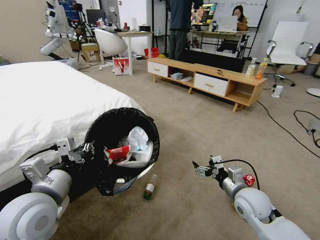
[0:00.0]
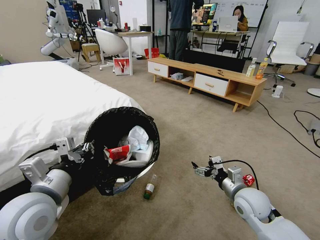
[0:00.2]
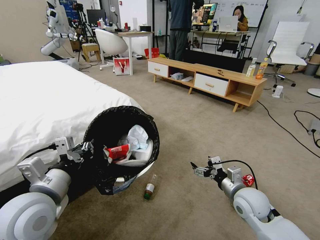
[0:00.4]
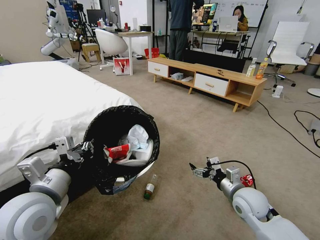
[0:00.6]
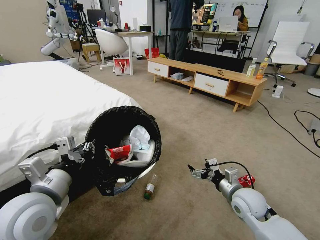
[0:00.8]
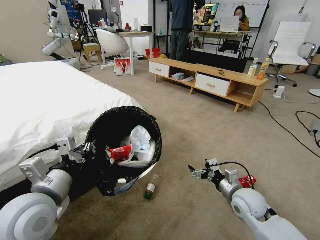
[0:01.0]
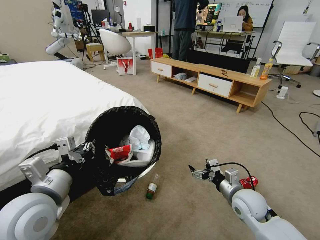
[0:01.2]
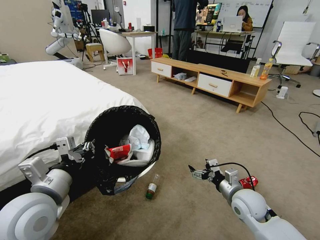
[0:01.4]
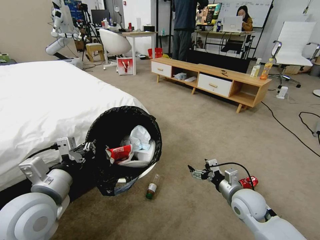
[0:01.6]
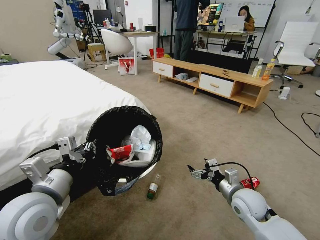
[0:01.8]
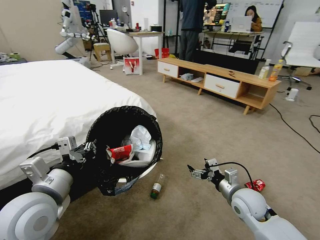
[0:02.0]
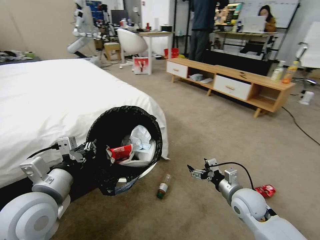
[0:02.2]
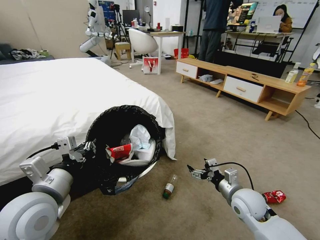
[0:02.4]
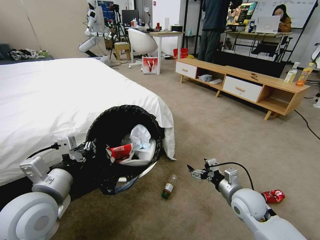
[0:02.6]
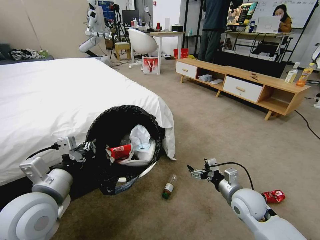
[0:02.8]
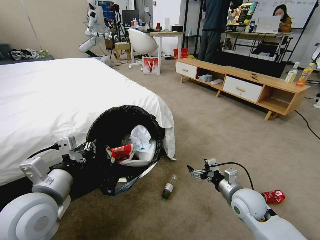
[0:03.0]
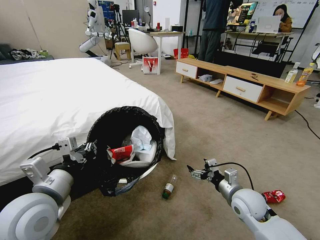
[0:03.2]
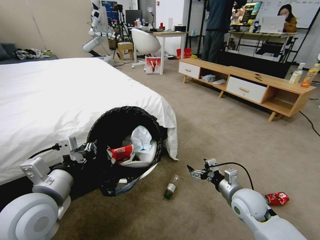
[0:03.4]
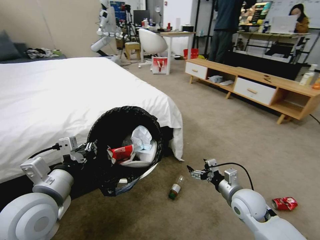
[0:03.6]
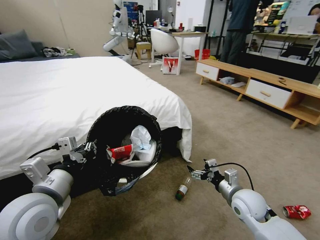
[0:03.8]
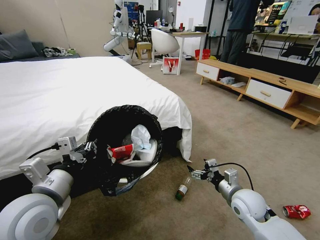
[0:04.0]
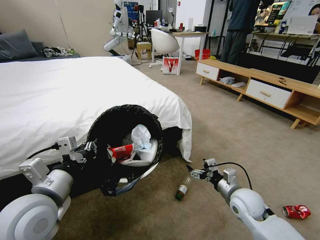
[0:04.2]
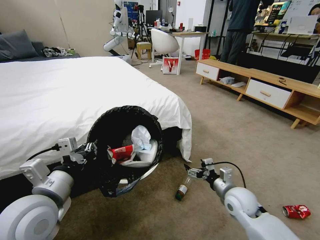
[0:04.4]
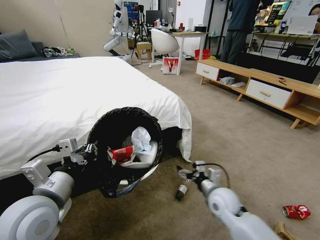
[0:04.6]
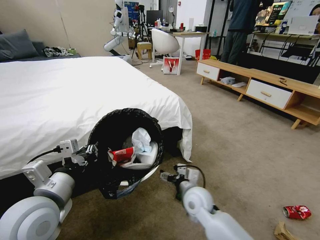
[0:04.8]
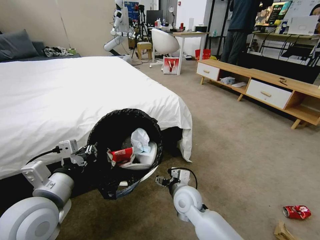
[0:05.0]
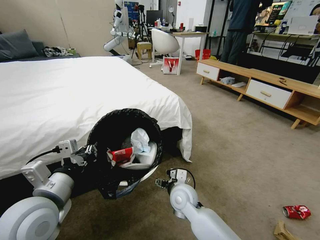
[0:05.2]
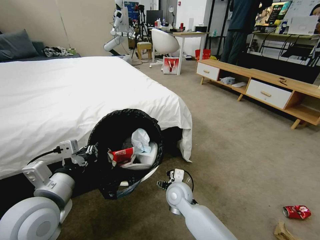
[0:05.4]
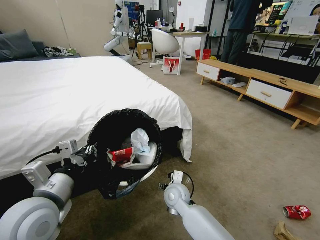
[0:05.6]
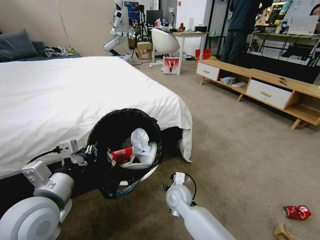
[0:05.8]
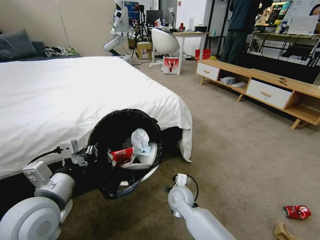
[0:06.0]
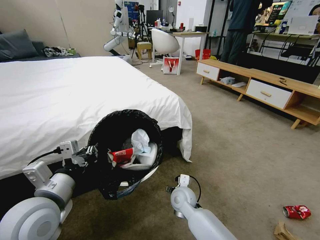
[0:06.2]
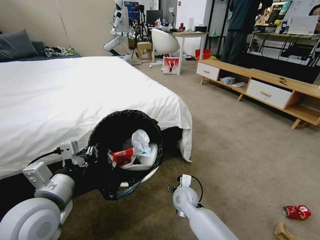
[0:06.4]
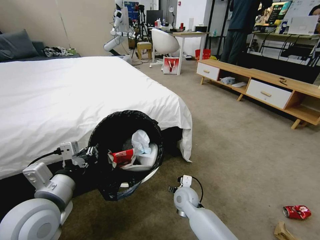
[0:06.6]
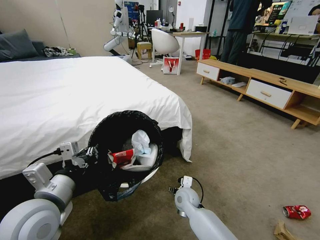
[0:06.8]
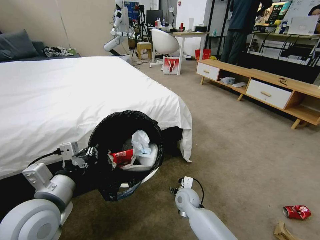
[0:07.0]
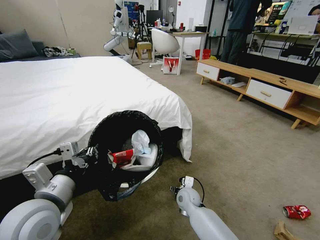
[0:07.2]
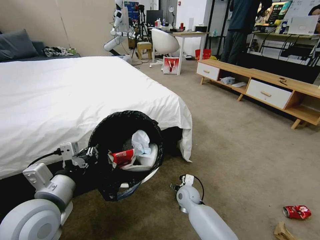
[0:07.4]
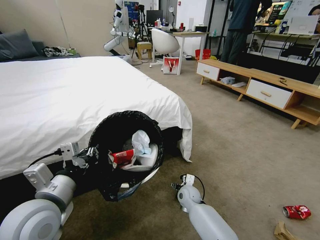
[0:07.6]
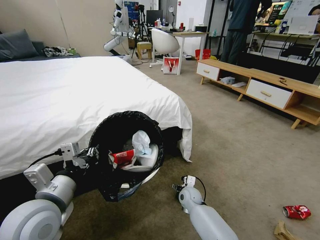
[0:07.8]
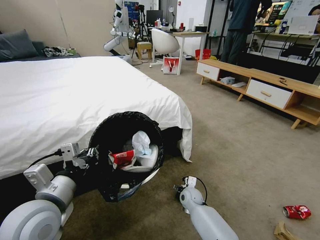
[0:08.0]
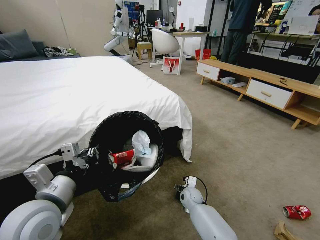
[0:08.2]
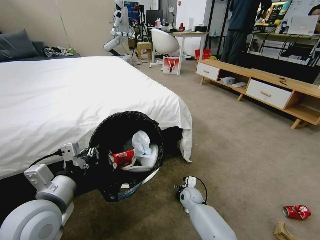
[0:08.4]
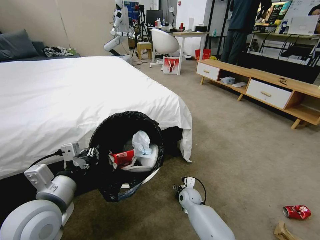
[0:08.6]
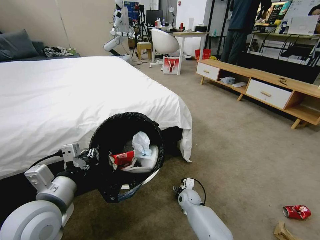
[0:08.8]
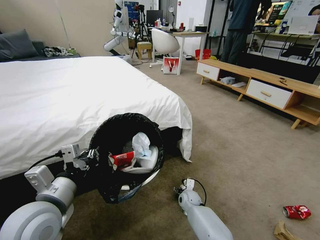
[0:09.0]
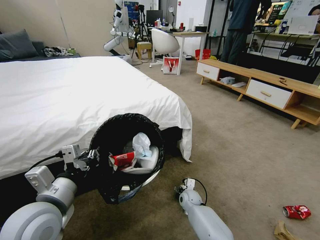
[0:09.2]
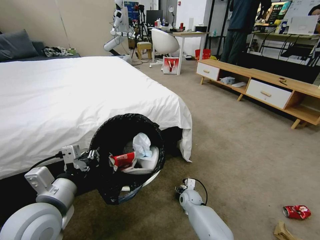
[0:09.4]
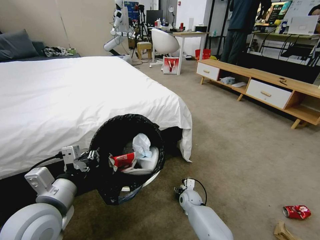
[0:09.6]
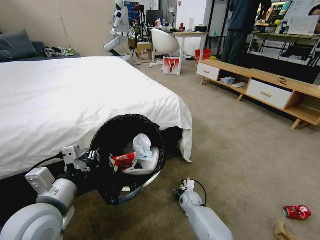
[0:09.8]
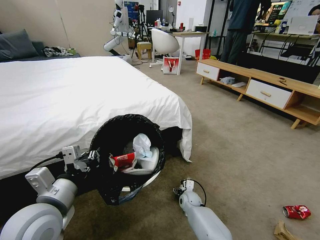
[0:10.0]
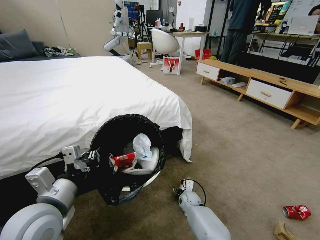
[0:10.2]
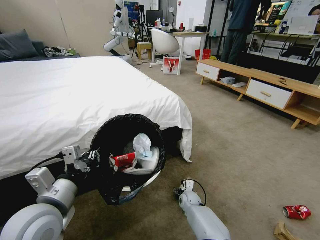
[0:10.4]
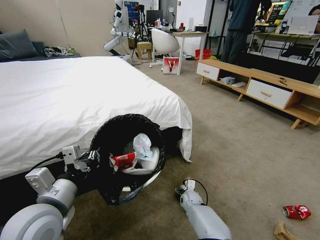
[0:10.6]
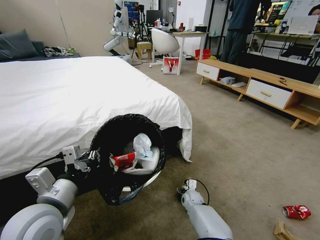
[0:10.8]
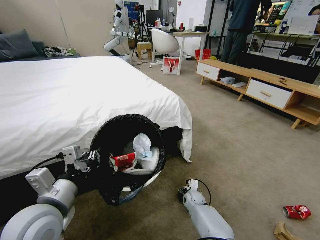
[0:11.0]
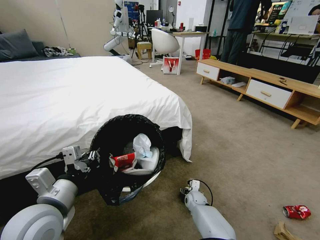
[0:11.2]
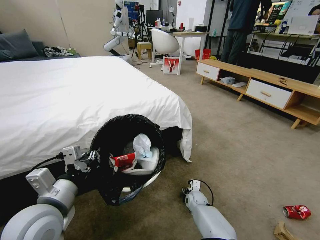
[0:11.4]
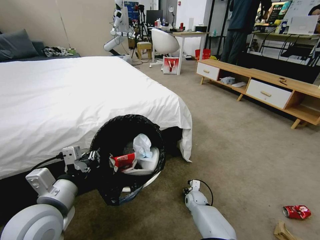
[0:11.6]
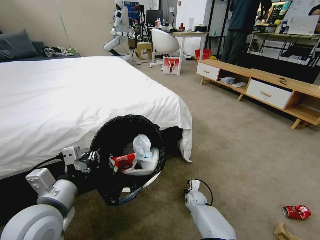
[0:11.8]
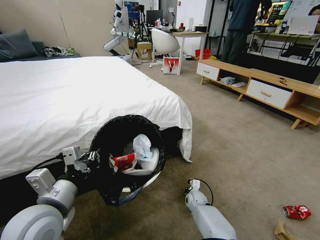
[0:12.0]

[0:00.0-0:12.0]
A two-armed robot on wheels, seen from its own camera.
Task of the whole recording: Pick up the trash bin and place the garbage on the floor into it.
0:04.4 to 0:06.0: The right gripper is displaced to the left by approximately 20 cm.
0:06.0 to 0:07.6: The right gripper travels downward, to the right and forward by about 10 cm.
0:07.6 to 0:09.0: The right gripper moves downward, roughly 5 cm.
0:09.0 to 0:10.4: There are only small adjustments of the grippers.
0:10.4 to 0:12.0: The right gripper closes up.

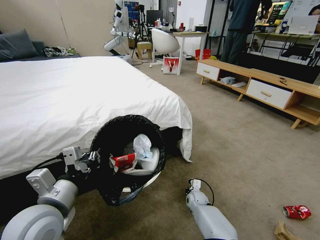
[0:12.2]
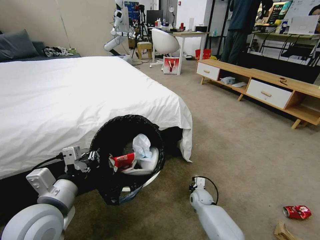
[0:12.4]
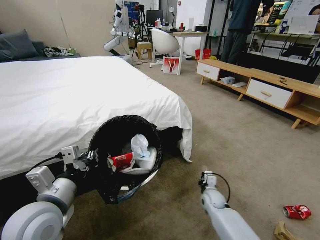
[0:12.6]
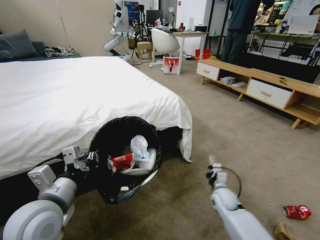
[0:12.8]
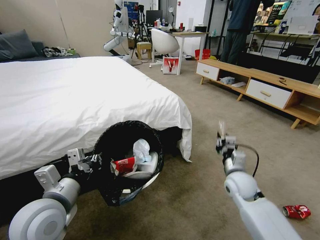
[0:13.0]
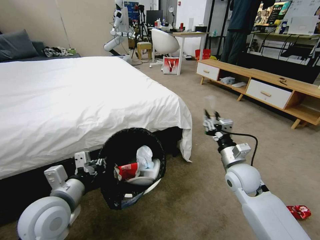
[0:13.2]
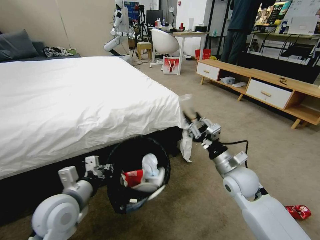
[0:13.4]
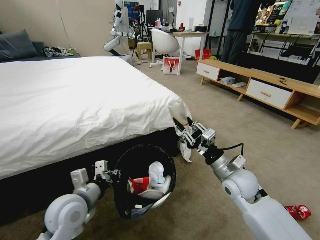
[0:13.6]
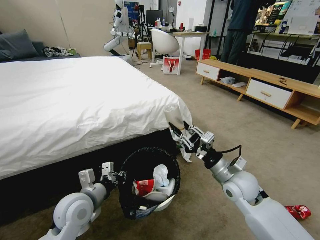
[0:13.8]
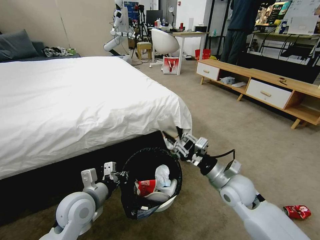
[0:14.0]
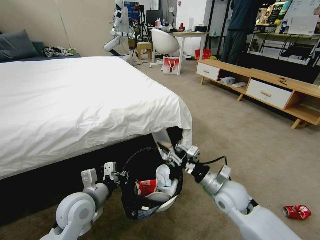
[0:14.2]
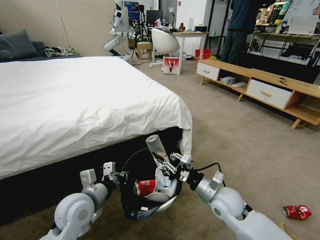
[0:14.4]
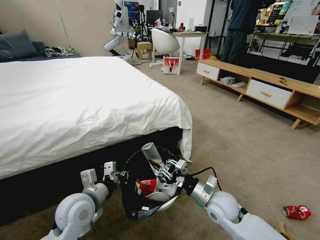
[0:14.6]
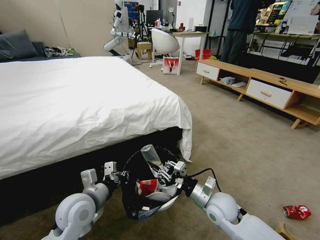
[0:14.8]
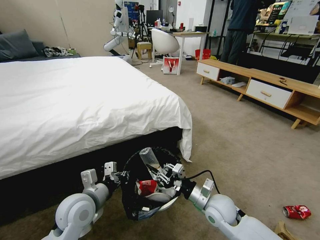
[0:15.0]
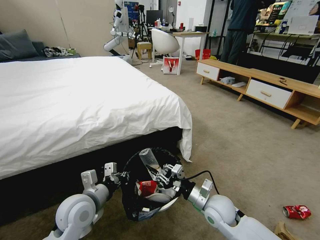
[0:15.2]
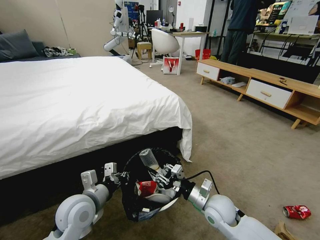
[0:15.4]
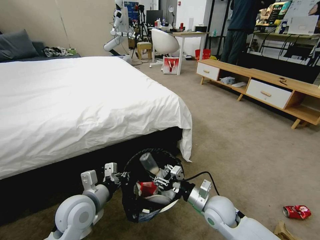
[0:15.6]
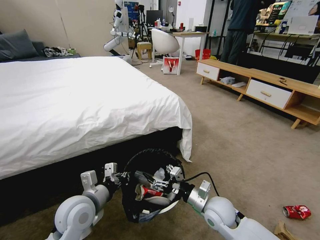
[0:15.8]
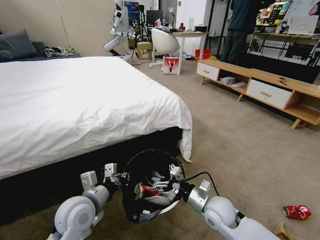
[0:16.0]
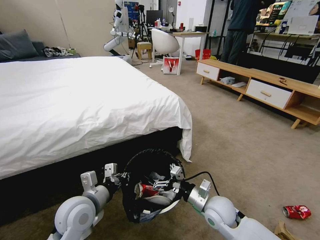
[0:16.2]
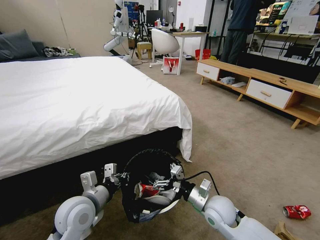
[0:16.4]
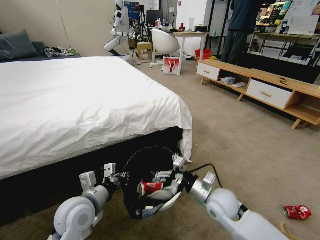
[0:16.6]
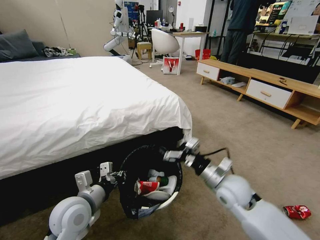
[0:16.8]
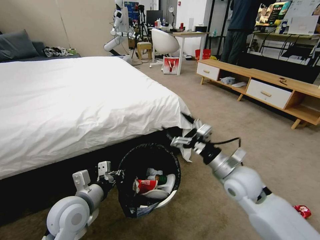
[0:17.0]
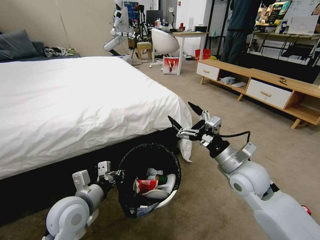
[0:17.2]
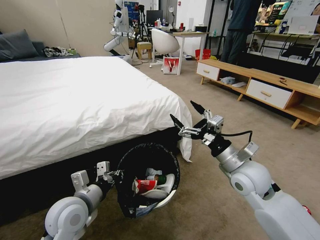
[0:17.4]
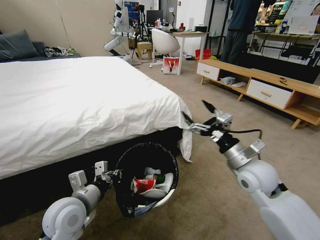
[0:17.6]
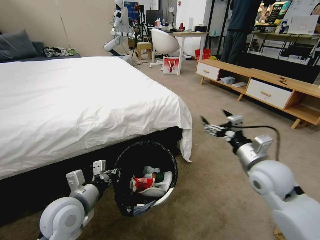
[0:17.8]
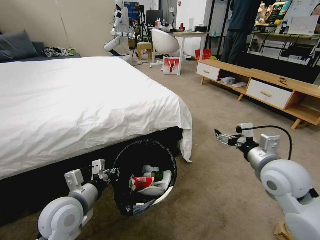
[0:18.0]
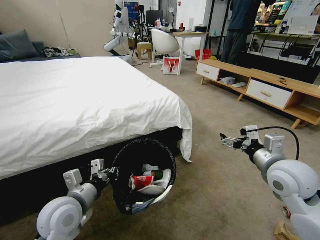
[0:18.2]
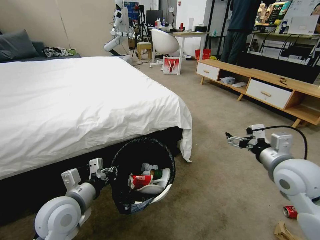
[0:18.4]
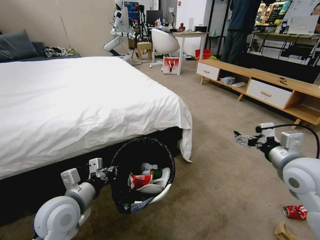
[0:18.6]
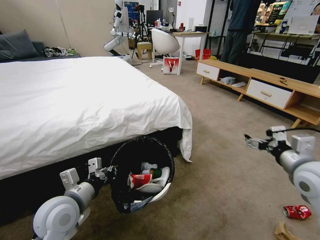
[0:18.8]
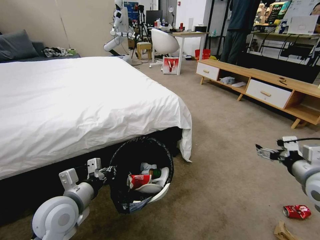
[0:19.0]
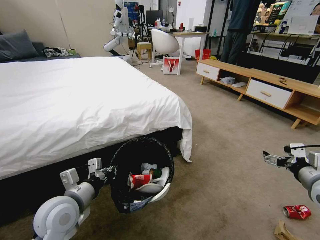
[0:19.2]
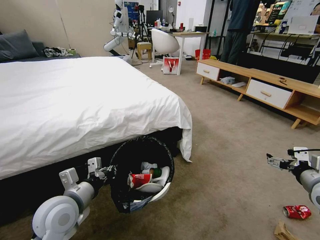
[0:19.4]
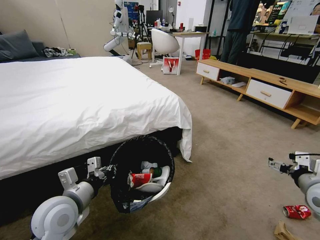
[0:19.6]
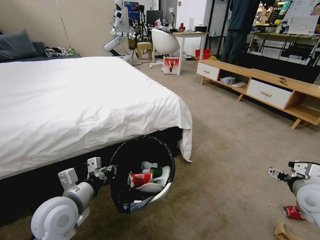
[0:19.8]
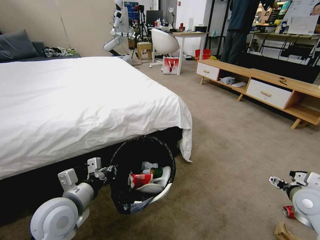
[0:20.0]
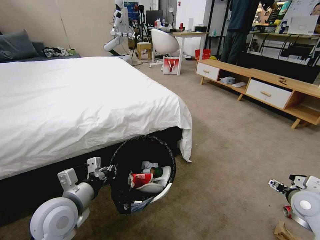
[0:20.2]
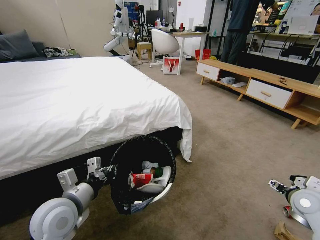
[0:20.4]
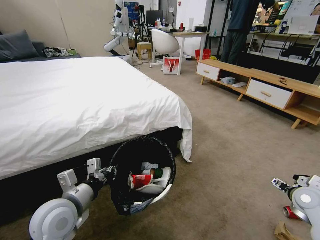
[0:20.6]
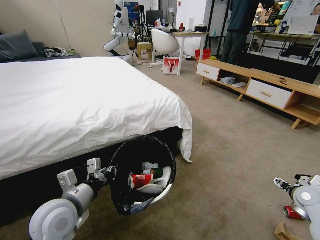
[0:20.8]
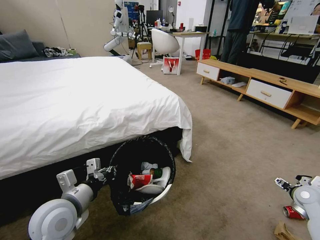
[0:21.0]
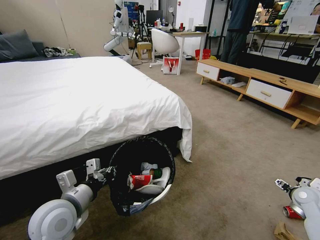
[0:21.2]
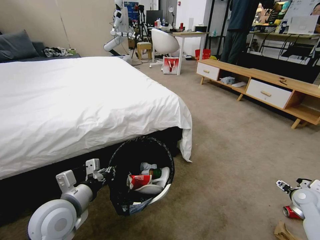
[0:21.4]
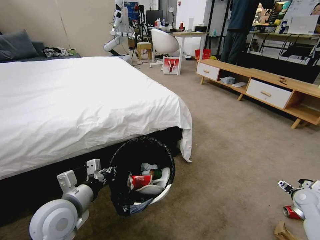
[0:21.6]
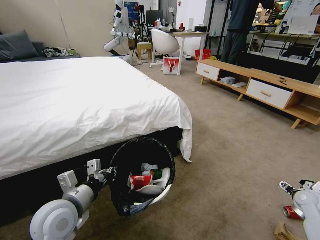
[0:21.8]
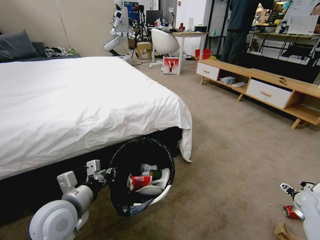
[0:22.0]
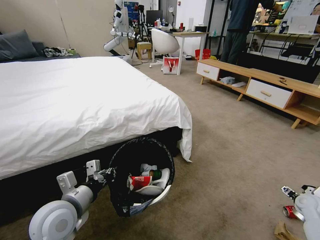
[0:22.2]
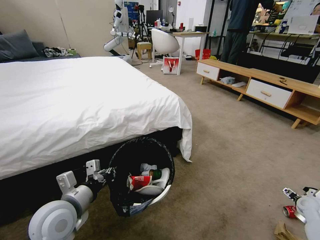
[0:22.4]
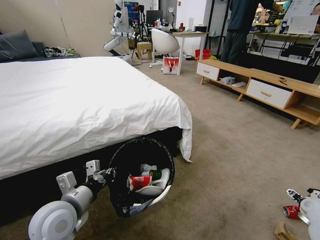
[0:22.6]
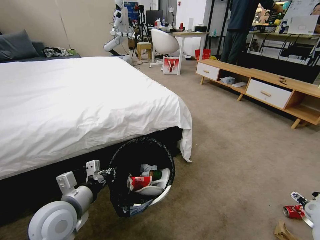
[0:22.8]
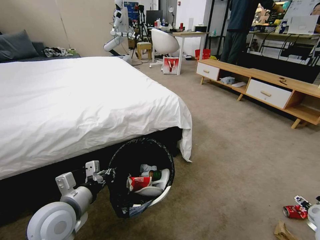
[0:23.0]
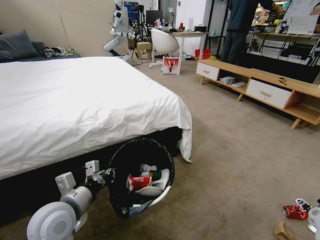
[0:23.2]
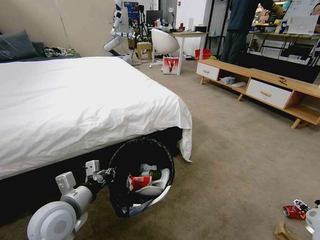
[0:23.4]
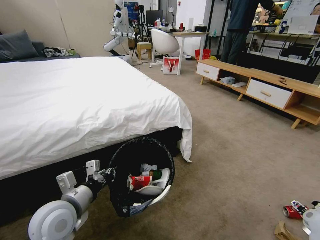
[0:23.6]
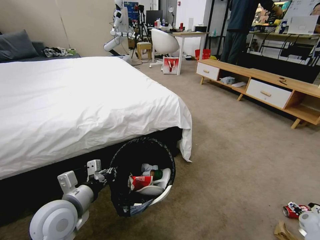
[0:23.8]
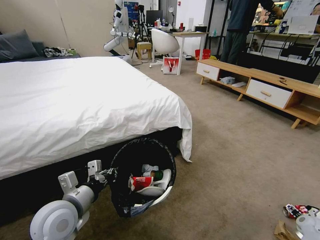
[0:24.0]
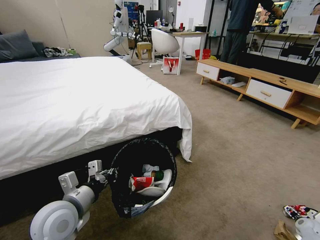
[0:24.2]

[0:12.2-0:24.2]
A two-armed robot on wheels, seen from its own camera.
Task of the whole recording: Pick up the trash bin and place the garbage on the floor into it.
0:12.2 to 0:13.8: The left gripper moves downward and forward, roughly 10 cm. Meanwhile the right gripper goes about 30 cm upward.
0:13.8 to 0:15.2: The right gripper goes roughly 10 cm downward and to the left.
0:15.2 to 0:16.6: The right gripper opens up.
0:16.6 to 0:18.2: The right gripper is displaced upward and to the right by some 20 cm.
0:18.2 to 0:19.8: The right gripper is displaced to the right and downward by about 15 cm.
0:19.8 to 0:21.2: The right gripper moves downward and to the right, some 15 cm.
0:21.2 to 0:22.6: The right gripper is displaced to the right and downward by some 5 cm.
0:22.6 to 0:24.2: The right gripper is displaced downward by about 10 cm.
